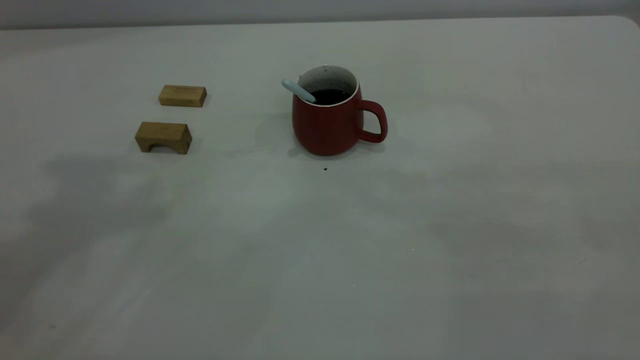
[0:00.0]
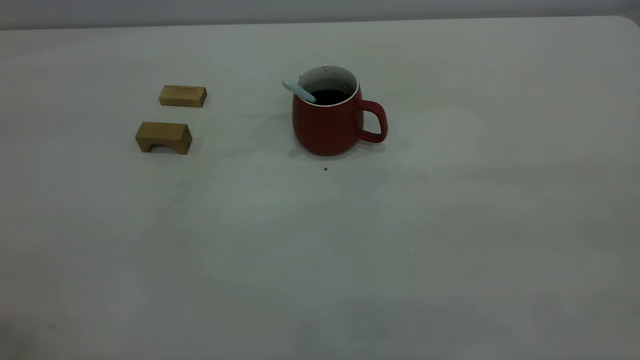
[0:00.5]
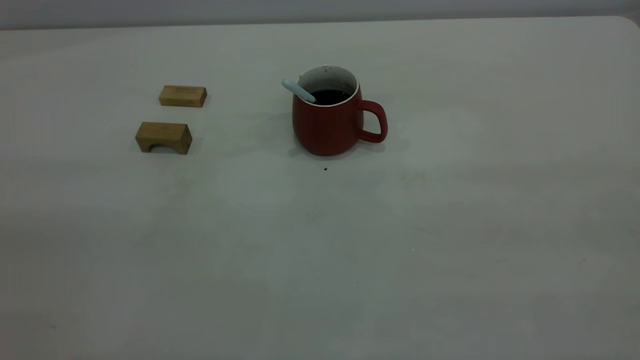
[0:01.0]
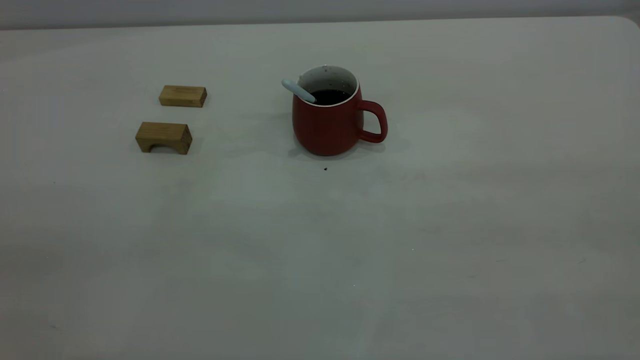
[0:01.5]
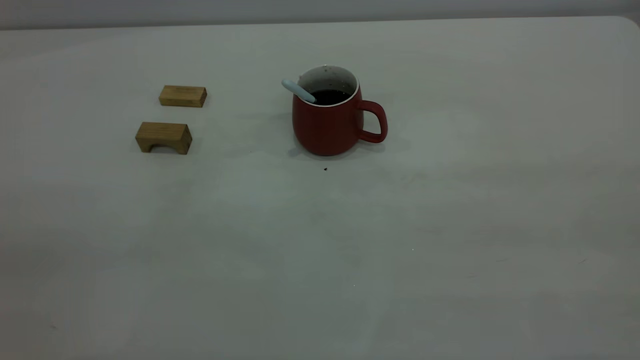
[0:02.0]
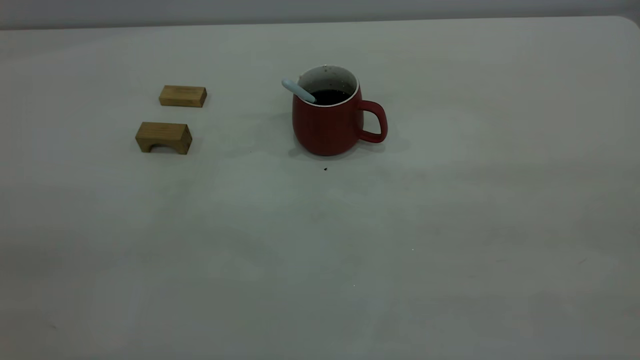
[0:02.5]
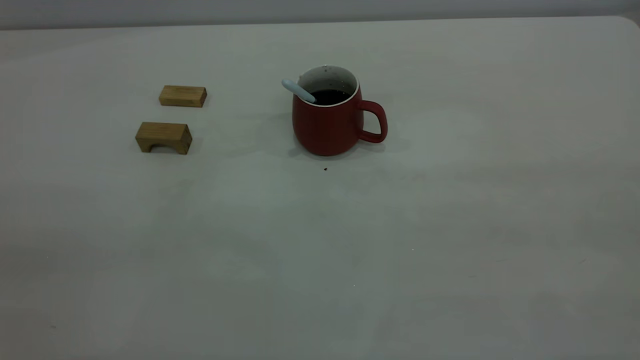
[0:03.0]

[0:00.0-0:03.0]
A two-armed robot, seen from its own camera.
0:01.5 to 0:03.0: Both grippers stay put.
